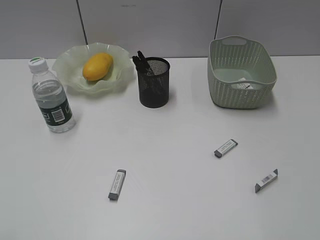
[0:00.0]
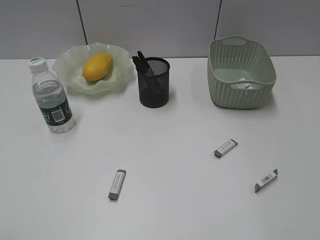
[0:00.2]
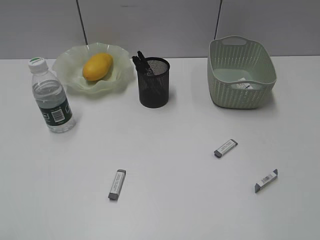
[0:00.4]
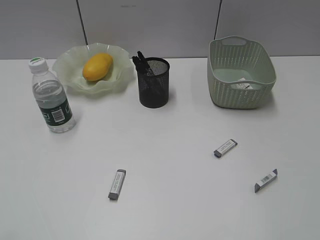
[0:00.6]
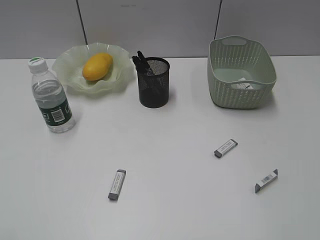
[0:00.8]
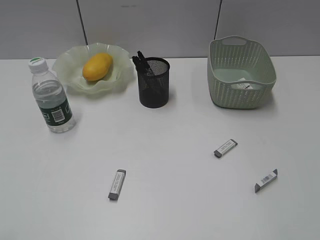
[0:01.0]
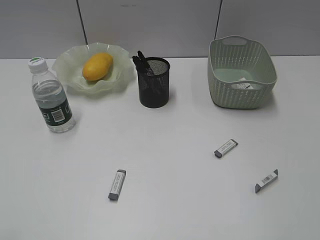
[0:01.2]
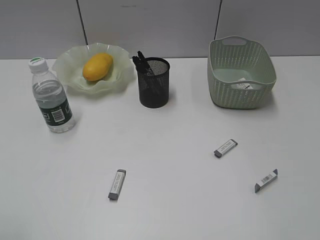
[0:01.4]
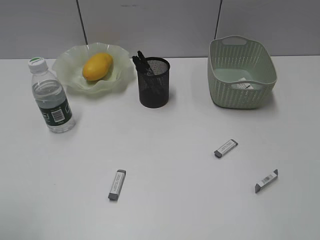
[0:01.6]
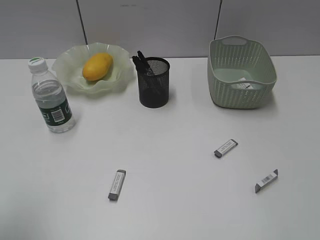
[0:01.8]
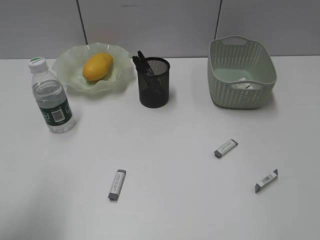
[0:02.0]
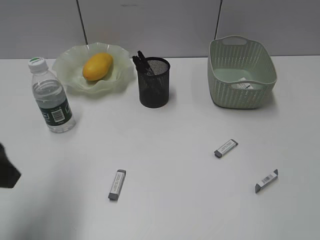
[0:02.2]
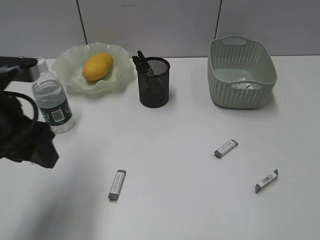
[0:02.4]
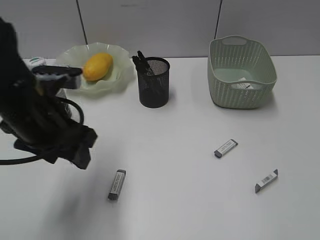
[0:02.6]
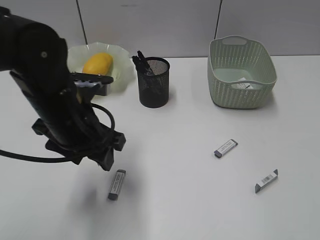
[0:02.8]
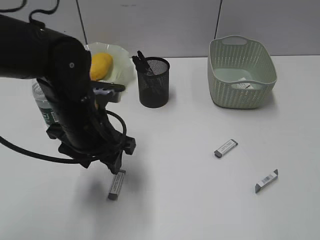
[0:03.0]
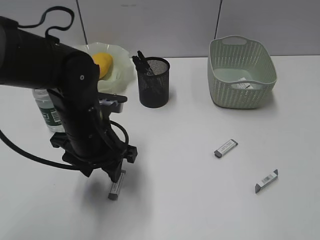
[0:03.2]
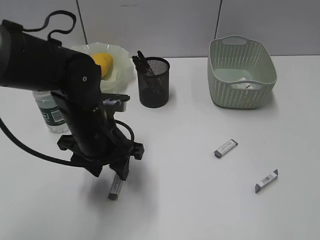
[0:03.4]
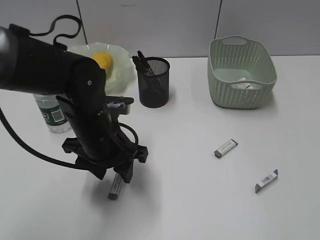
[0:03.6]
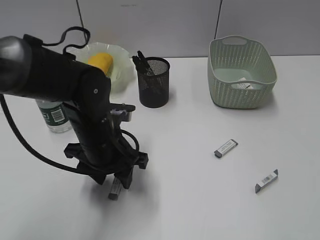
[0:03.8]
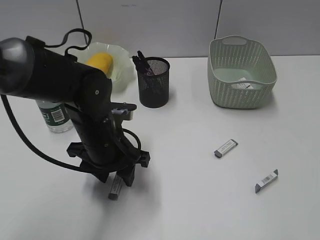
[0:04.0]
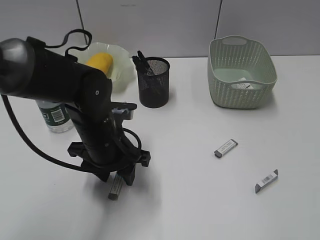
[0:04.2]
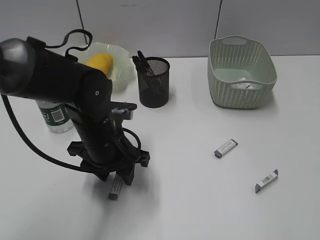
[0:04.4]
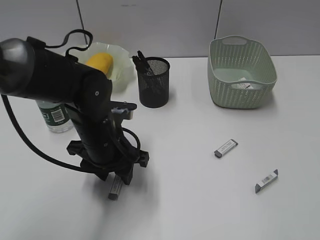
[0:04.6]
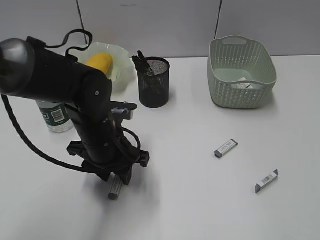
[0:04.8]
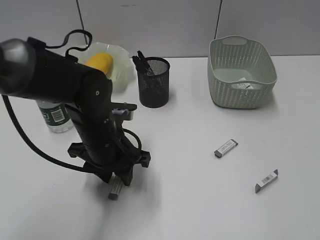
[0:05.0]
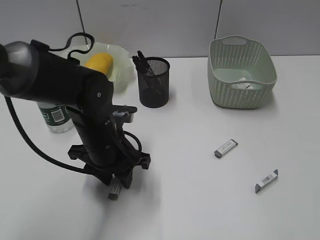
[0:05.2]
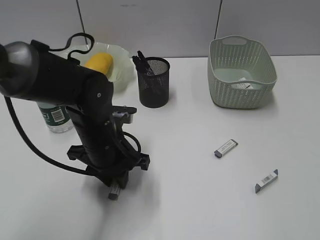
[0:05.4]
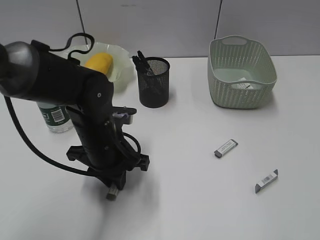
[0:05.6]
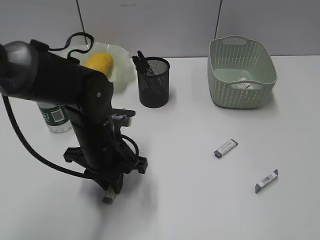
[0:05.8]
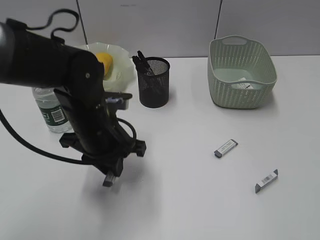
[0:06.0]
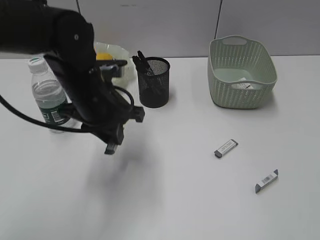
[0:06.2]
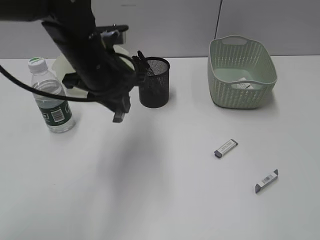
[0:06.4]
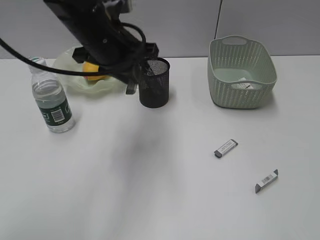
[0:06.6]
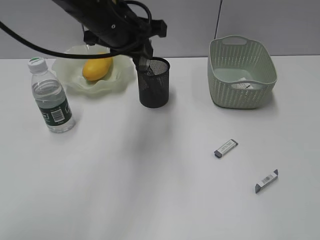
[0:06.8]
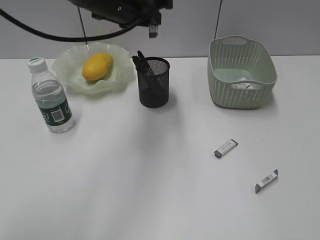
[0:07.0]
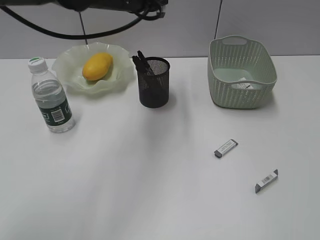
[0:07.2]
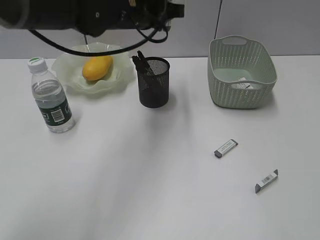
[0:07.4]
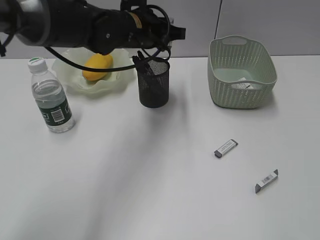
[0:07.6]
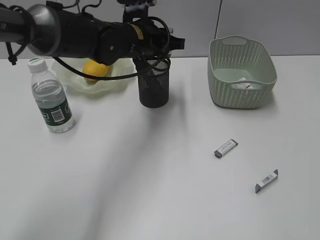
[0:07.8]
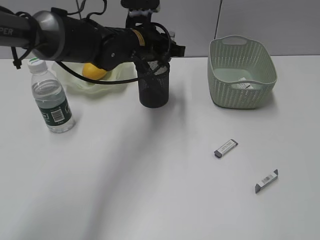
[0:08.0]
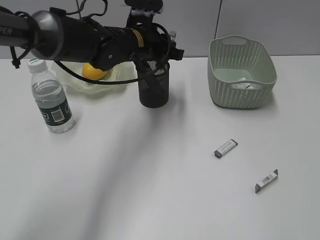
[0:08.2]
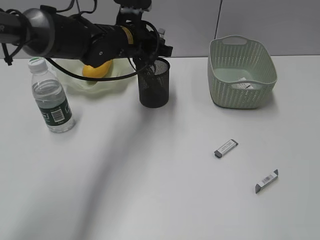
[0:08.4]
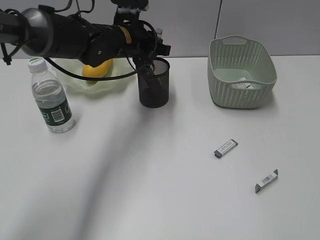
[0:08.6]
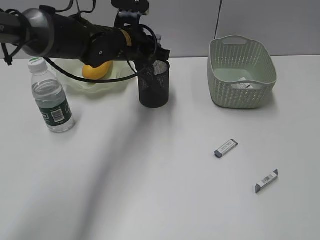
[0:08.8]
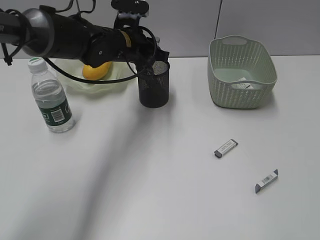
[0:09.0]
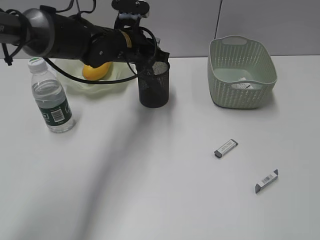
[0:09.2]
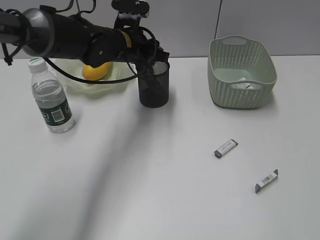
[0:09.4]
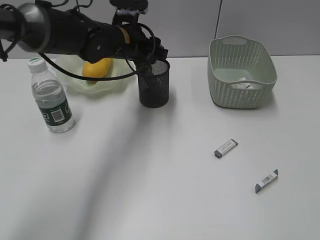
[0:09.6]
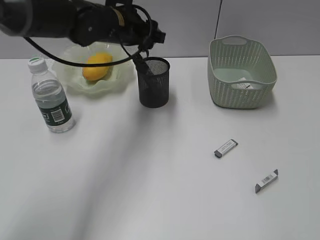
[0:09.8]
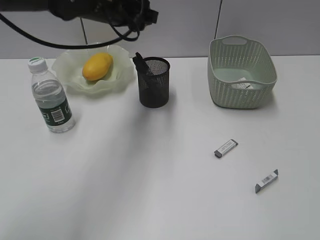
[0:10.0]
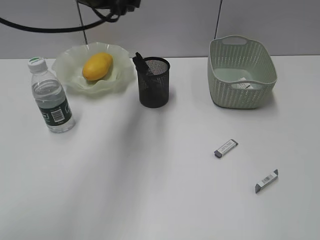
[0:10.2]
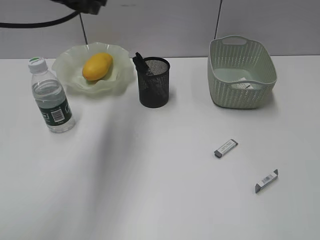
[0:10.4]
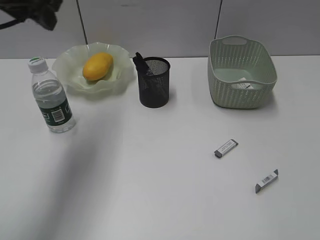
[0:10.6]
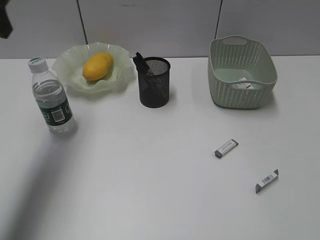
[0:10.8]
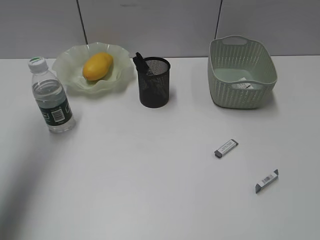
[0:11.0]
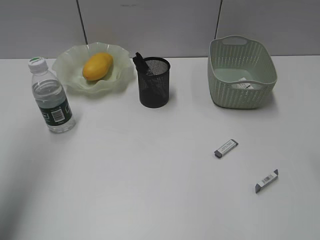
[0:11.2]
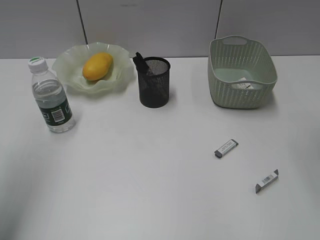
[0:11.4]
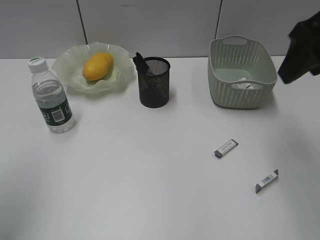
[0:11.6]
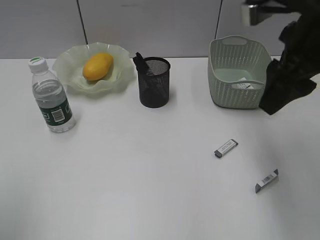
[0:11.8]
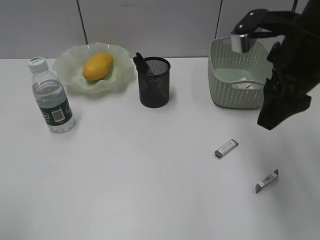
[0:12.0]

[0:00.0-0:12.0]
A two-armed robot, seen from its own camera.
Step, 0:00.0 to 0:05.4: Grasp the eraser with left gripper.
Step, 0:05.6 to 0:09.4: Place the eraser in pen holder with left gripper.
0:01.6 to 0:03.0: The left gripper moves forward, to the right and downward, approximately 30 cm.
0:03.0 to 0:04.4: The left gripper travels downward by approximately 5 cm.
0:04.4 to 0:06.0: The left gripper closes.
0:06.0 to 0:07.6: The left gripper moves forward, upward and to the right, about 15 cm.
0:07.6 to 0:09.0: The left gripper moves approximately 5 cm.
0:09.0 to 0:10.4: The left gripper moves upward, to the left and backward, some 20 cm, and opens up.
0:10.4 to 0:12.0: The right gripper travels forward by approximately 30 cm. The left gripper shifts some 35 cm backward and to the left.

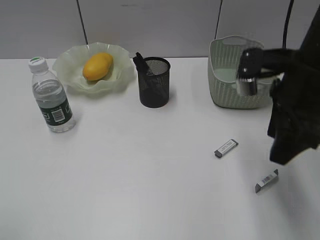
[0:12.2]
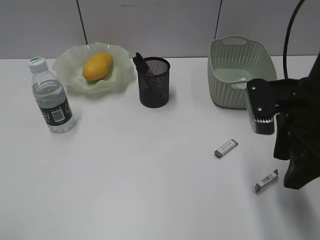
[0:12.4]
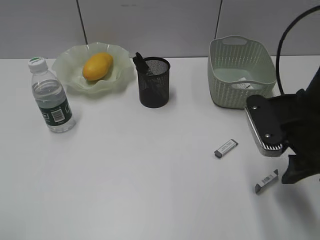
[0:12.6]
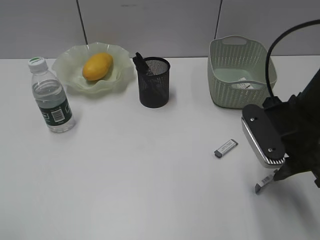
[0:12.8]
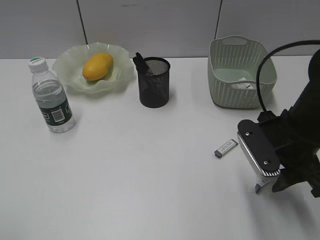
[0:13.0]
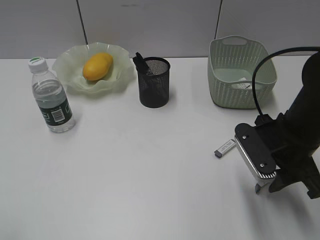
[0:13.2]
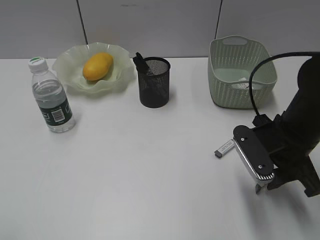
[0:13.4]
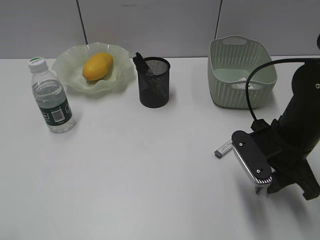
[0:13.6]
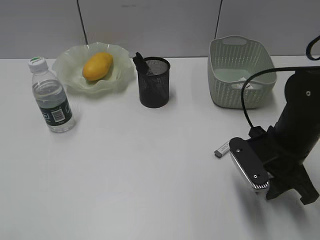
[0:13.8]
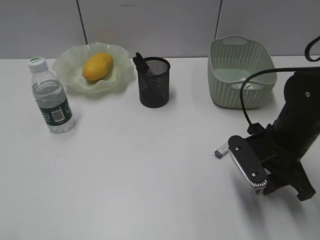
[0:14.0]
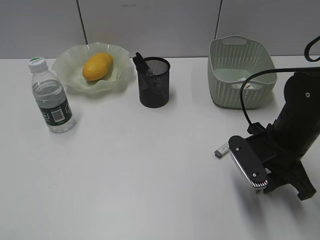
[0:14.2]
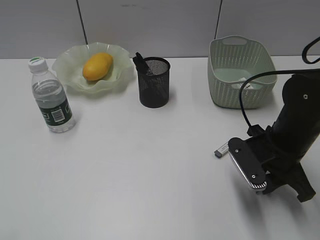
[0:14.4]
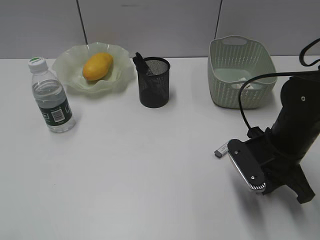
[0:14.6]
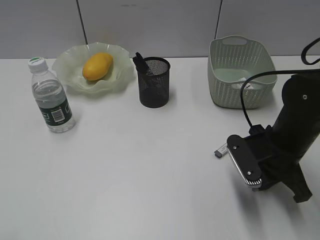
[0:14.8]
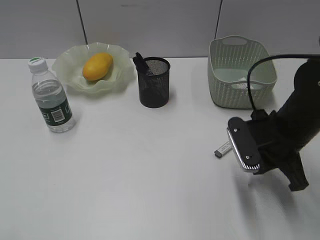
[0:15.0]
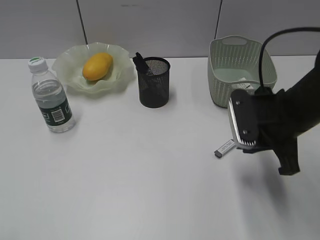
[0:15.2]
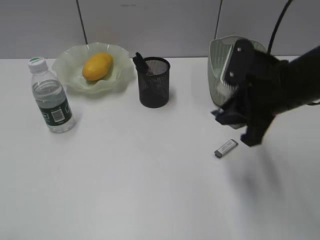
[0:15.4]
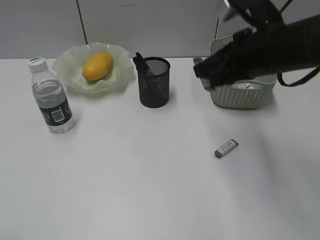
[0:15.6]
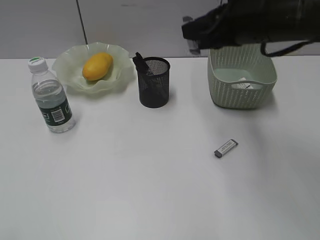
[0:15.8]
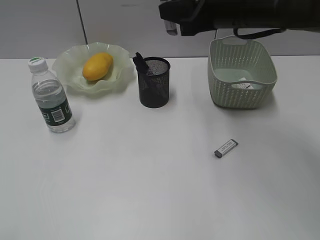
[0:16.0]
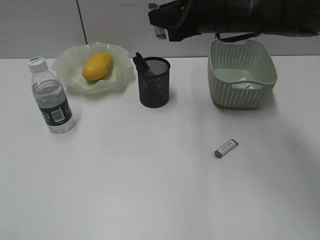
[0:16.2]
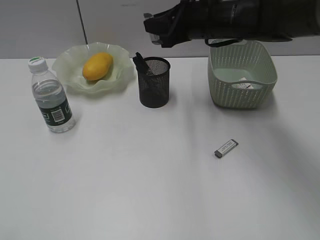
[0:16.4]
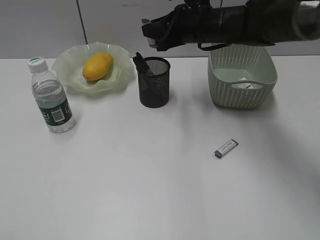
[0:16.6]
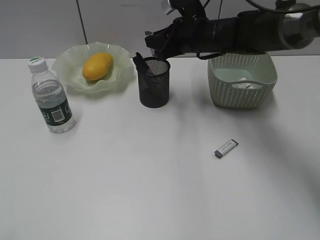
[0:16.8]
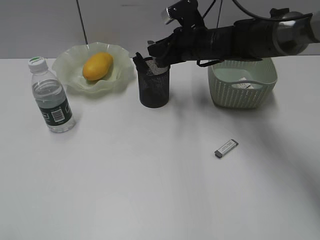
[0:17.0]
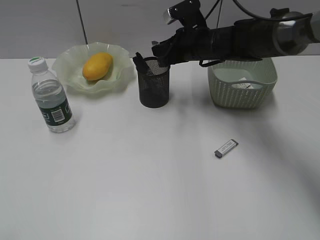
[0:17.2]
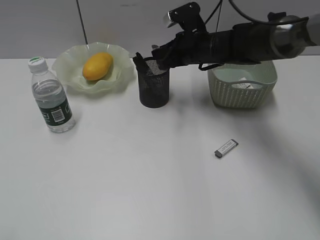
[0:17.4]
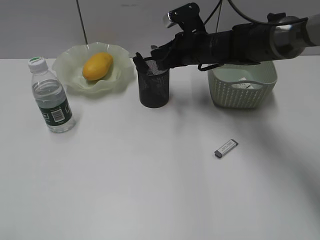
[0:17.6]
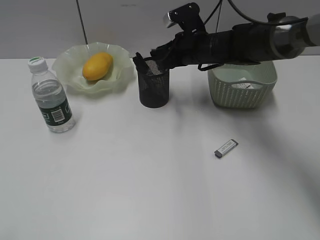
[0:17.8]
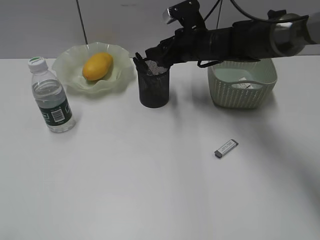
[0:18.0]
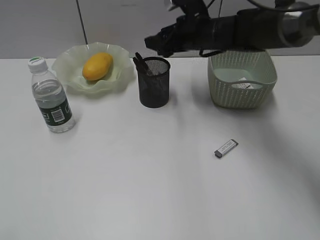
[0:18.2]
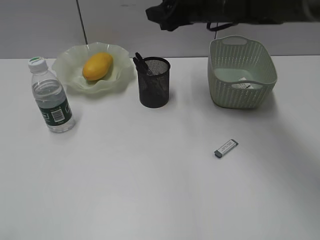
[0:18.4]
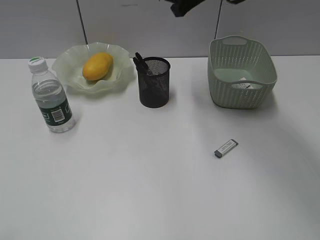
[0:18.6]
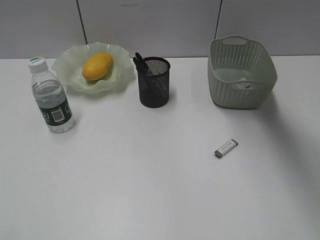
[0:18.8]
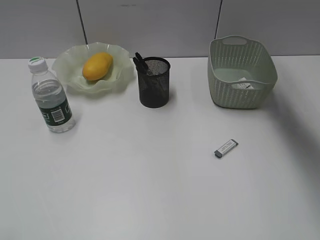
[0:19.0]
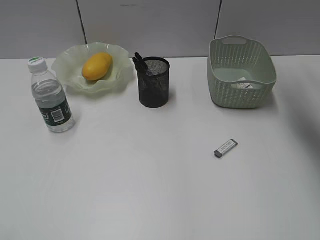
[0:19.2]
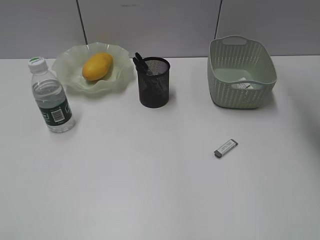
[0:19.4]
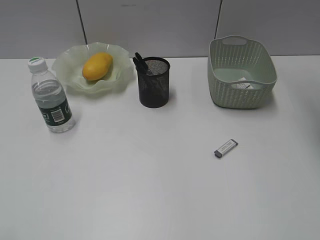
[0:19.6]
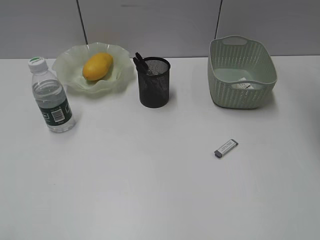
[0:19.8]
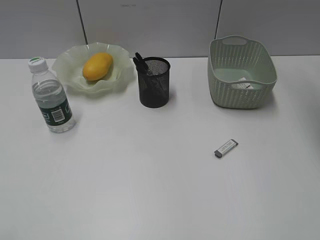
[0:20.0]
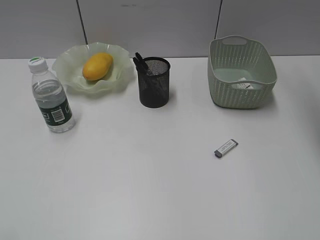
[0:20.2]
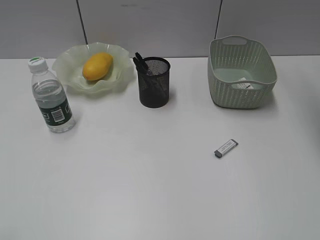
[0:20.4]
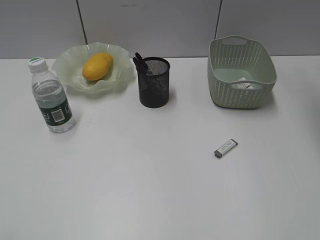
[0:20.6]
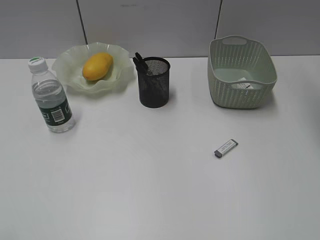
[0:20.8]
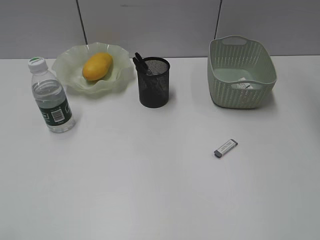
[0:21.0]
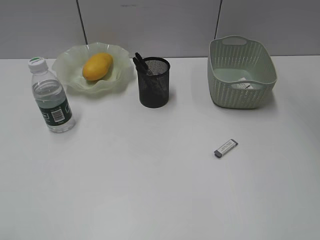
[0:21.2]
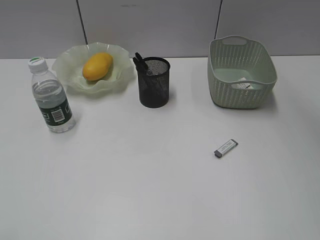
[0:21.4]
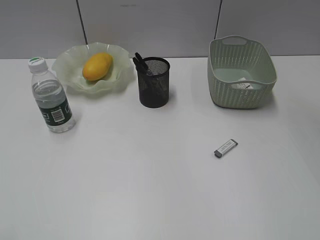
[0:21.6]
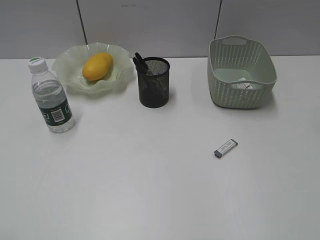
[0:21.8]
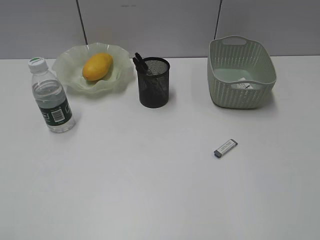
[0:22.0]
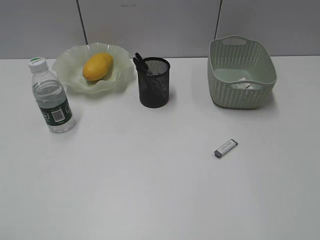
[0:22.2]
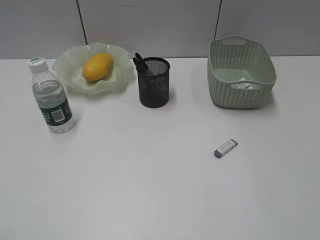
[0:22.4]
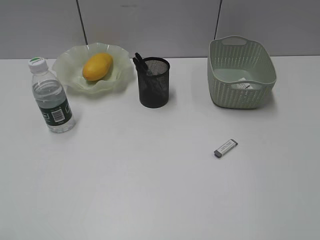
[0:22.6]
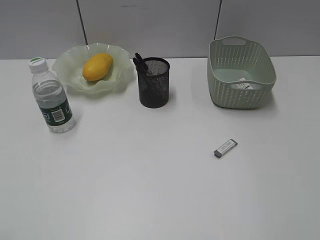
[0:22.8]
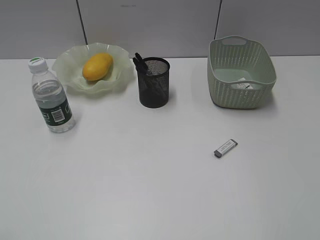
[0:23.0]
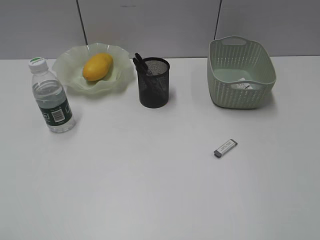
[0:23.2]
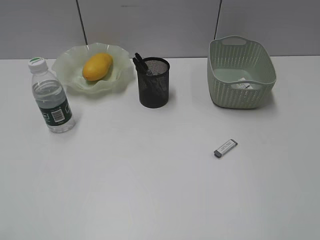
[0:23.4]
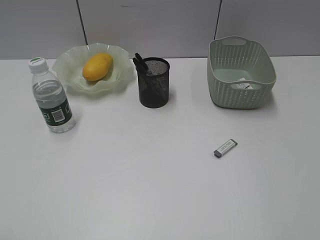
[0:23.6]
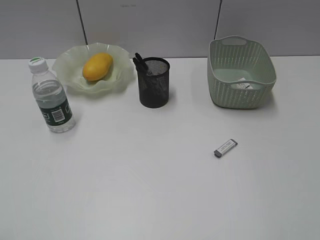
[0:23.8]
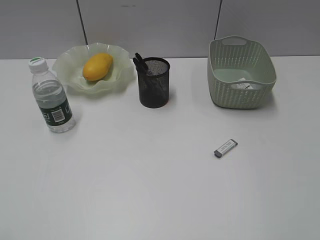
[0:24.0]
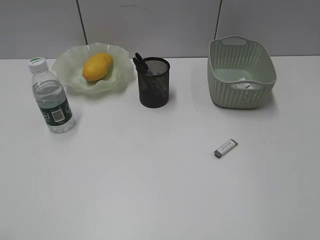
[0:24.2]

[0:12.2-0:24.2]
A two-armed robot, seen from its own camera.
Step, 0:12.2 to 0:14.6: Grasp the eraser with right gripper.
Step, 0:14.8 to 0:18.0: Place the eraser in pen holder with right gripper.
0:12.2 to 0:13.8: The right gripper goes approximately 15 cm downward.
0:13.8 to 0:15.2: The right gripper shifts some 5 cm upward, and closes up.
0:15.2 to 0:16.6: The right gripper moves forward and to the left, roughly 20 cm.
0:16.6 to 0:18.2: The right gripper opens.
0:18.2 to 0:19.8: The right gripper goes roughly 30 cm upward and to the right.
